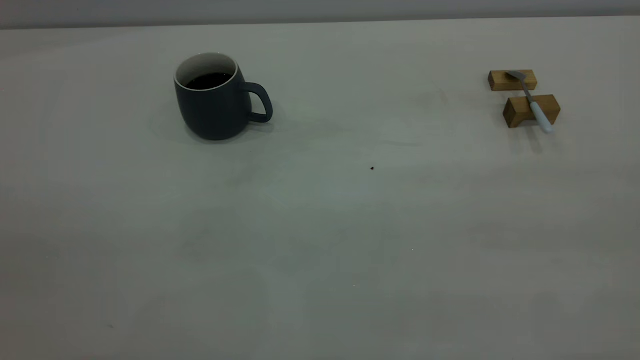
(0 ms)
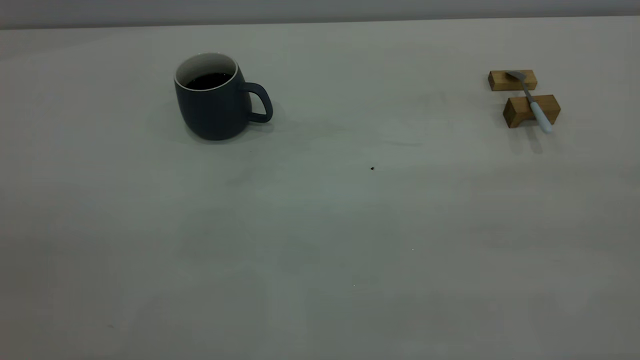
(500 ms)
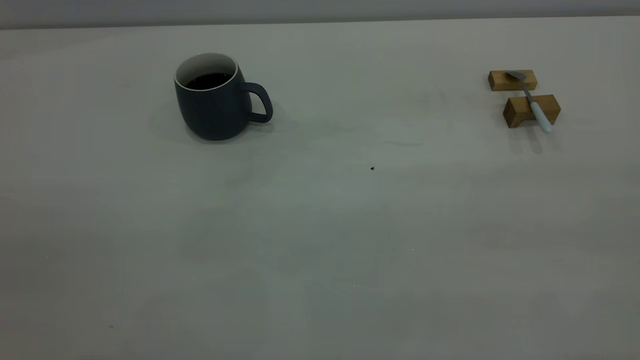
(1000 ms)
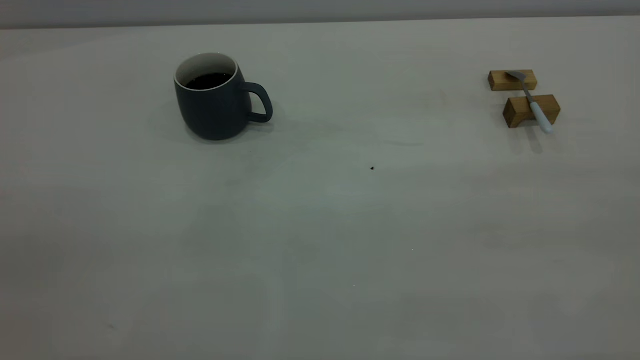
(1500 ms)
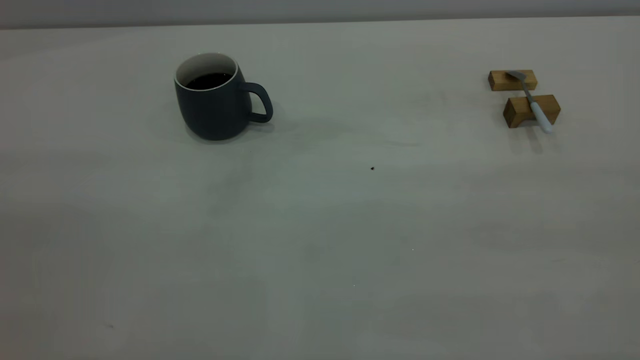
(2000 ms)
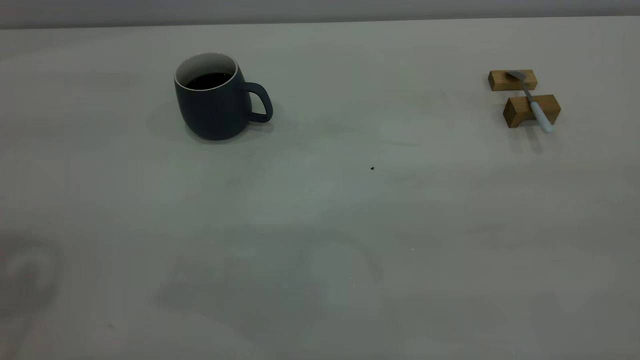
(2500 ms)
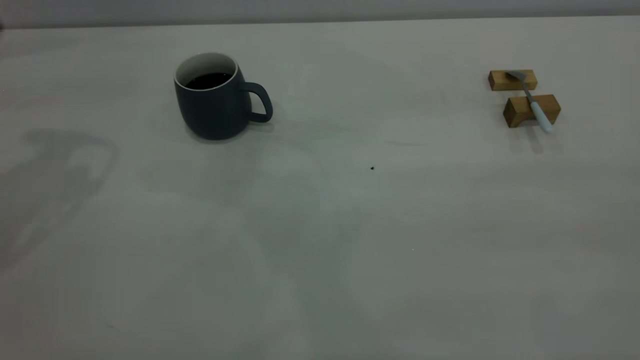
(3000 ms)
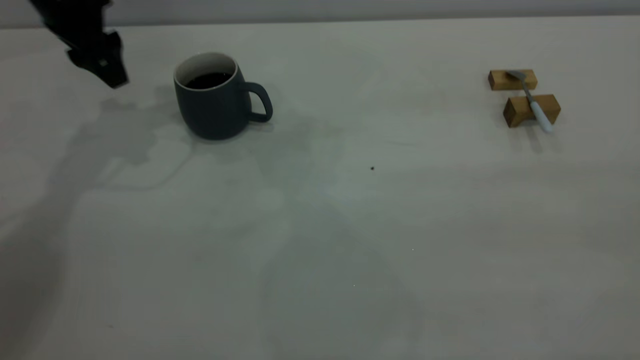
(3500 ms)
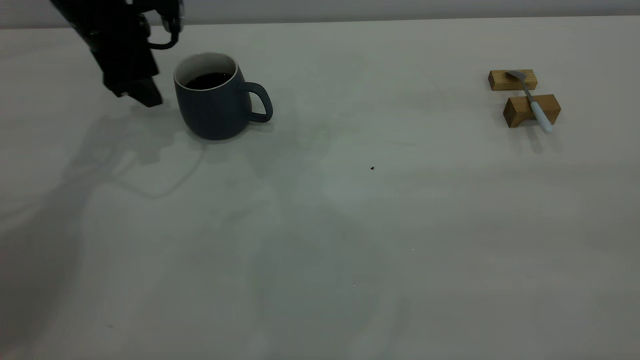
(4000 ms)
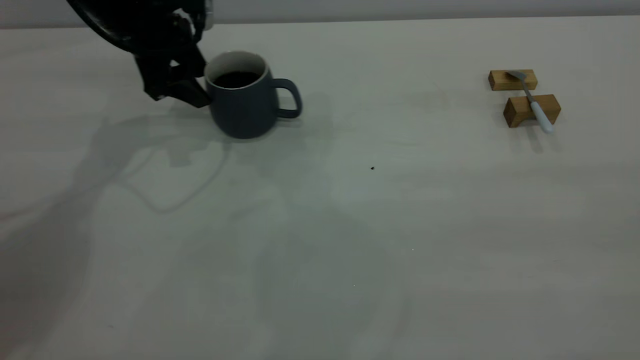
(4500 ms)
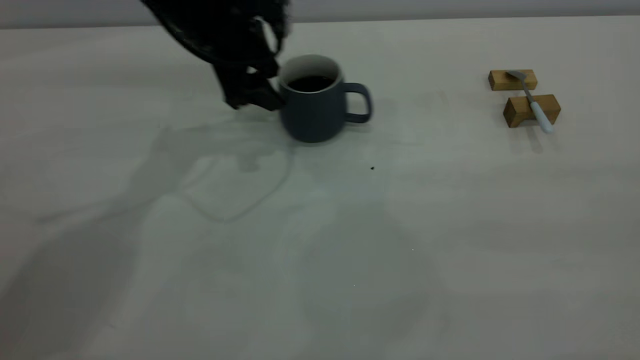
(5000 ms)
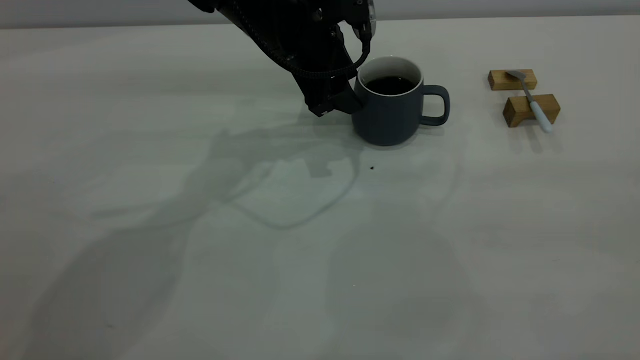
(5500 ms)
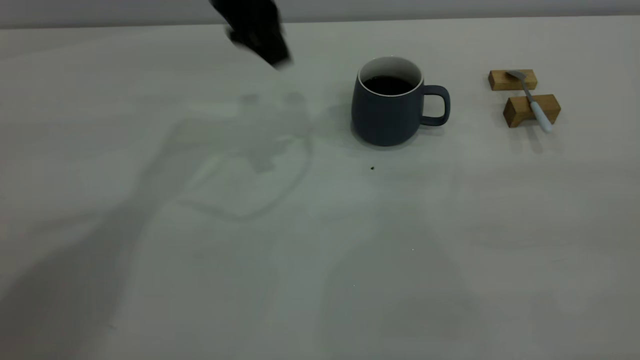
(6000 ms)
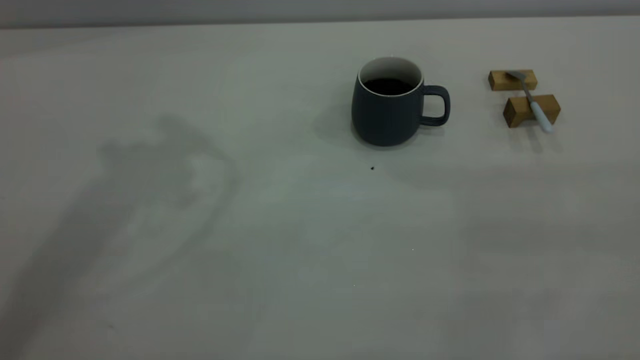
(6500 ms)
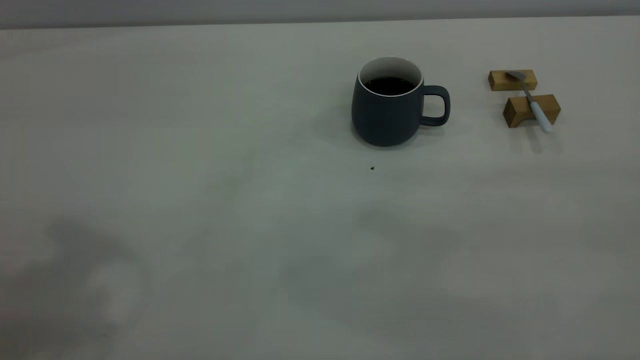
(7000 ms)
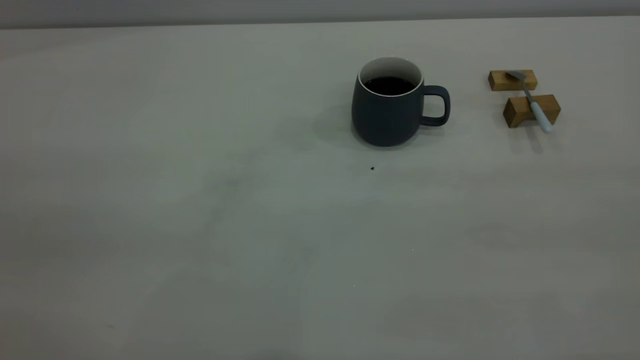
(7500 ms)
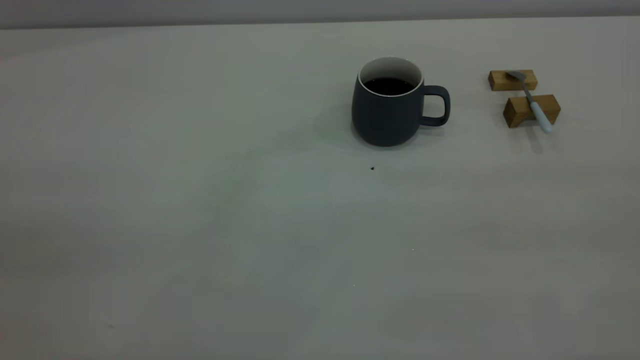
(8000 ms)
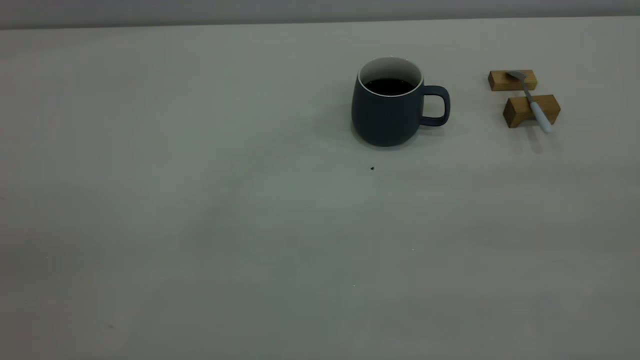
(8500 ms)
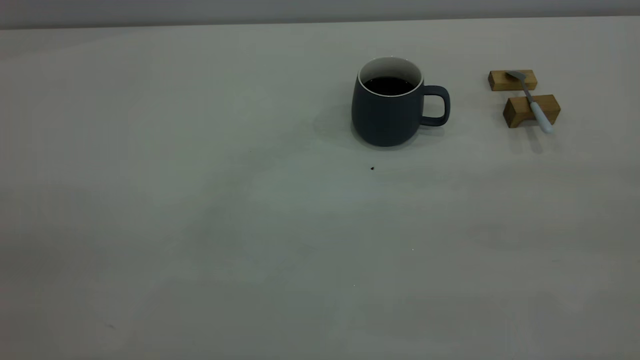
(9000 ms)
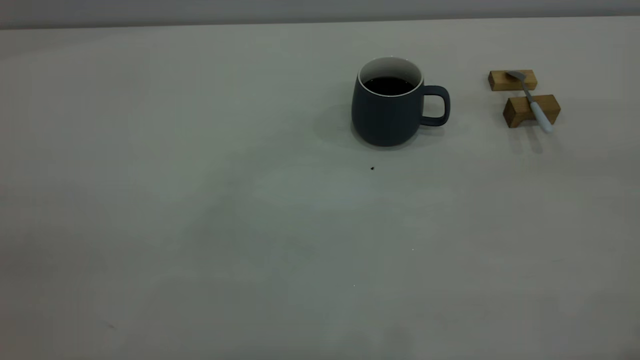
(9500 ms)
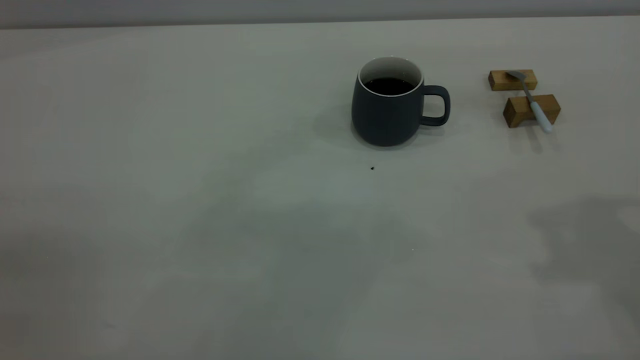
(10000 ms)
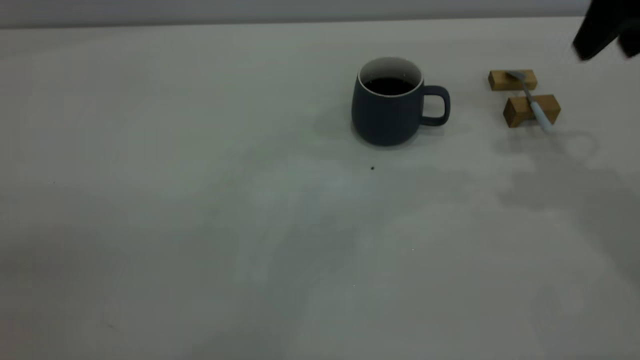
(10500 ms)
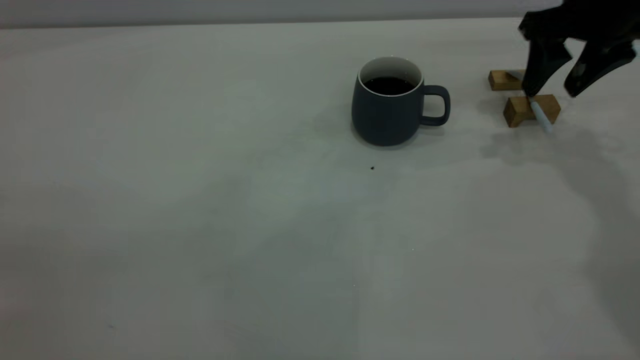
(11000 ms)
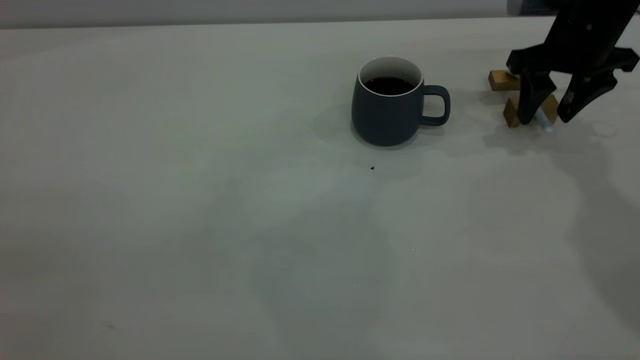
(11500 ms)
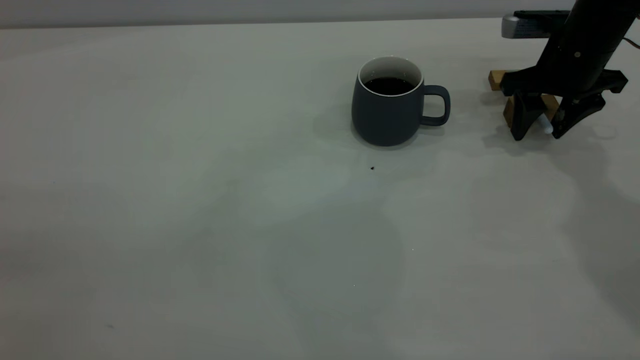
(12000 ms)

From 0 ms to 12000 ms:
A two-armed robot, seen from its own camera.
Step, from 0 ms to 5500 ms: Move the cup with coffee to the center of view.
From 2000 ms to 4000 ms: The left gripper heads forward and downward, covering some 50 cm.
From 4000 ms to 6000 ms: The left gripper goes roughly 15 cm to the right and upward.
From 6000 ms to 8000 ms: The left gripper is displaced backward and to the left by roughly 50 cm.
From 10000 ms to 12000 ms: The right gripper goes about 30 cm downward and forward.

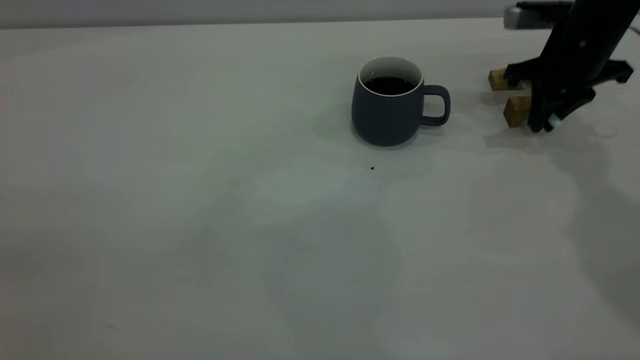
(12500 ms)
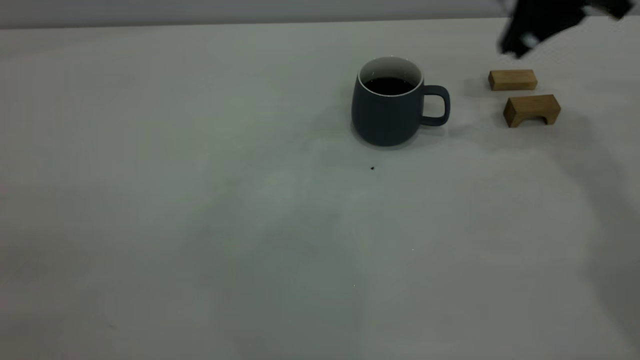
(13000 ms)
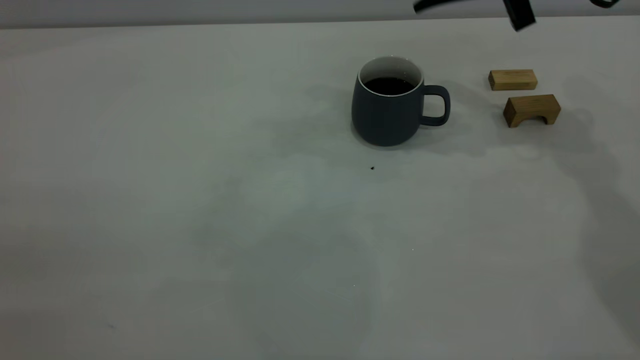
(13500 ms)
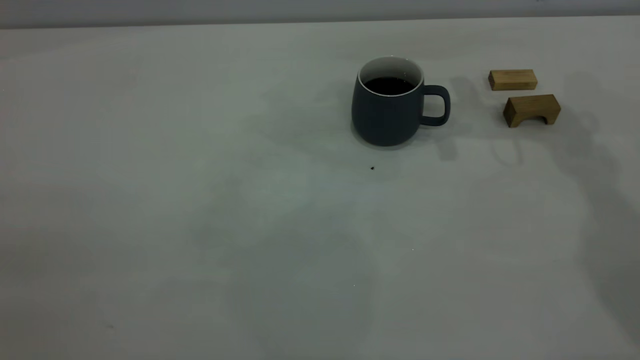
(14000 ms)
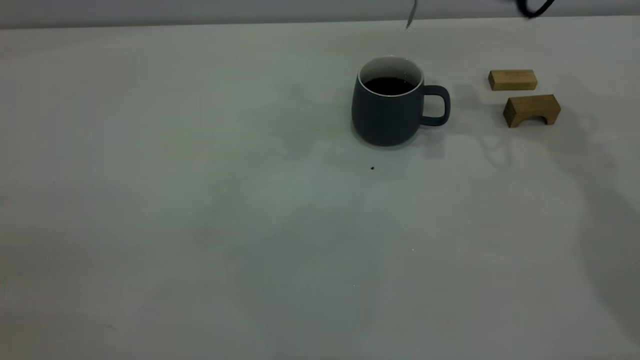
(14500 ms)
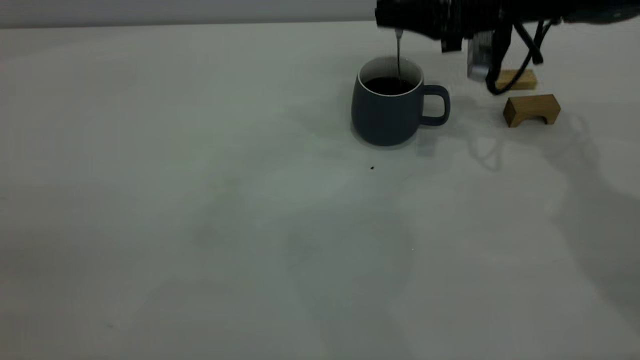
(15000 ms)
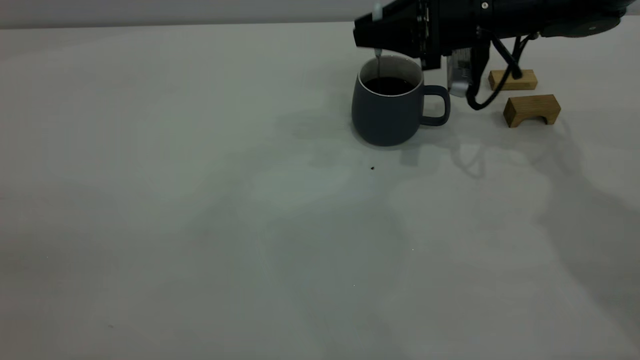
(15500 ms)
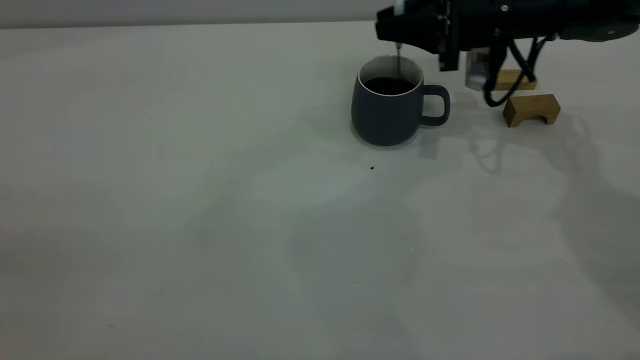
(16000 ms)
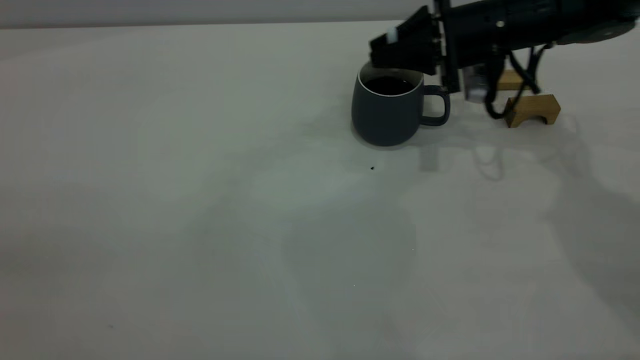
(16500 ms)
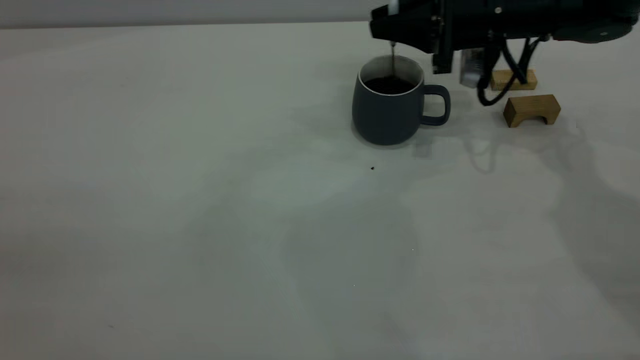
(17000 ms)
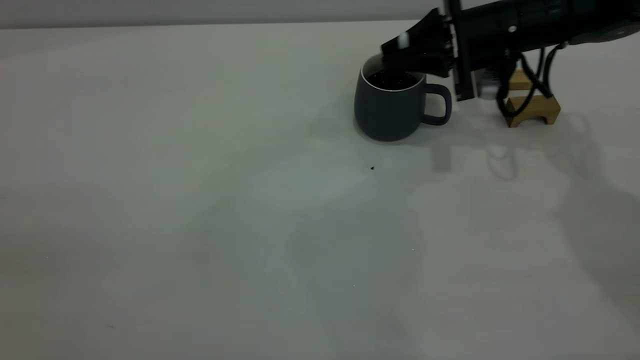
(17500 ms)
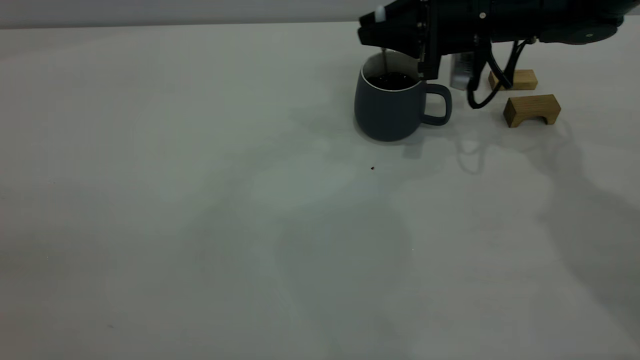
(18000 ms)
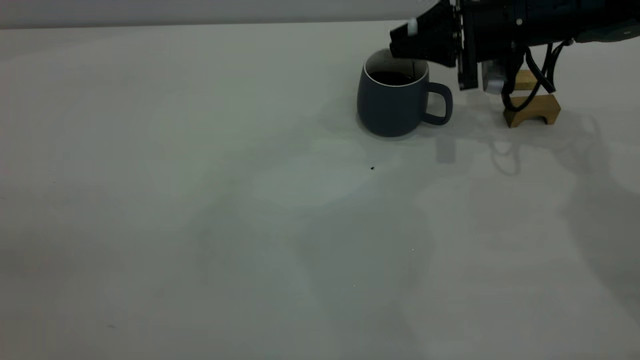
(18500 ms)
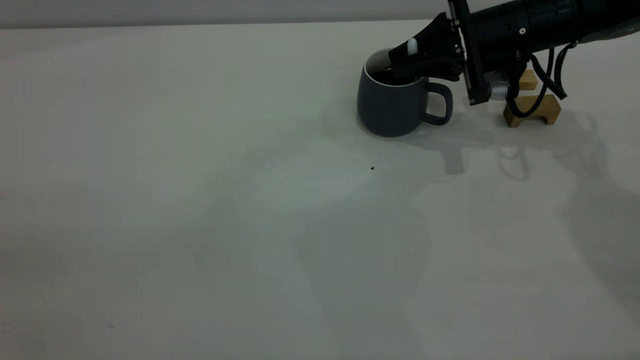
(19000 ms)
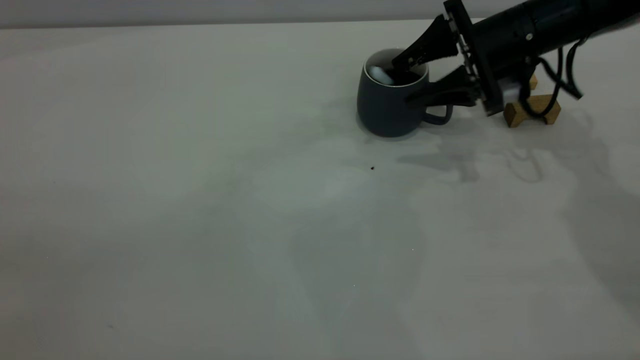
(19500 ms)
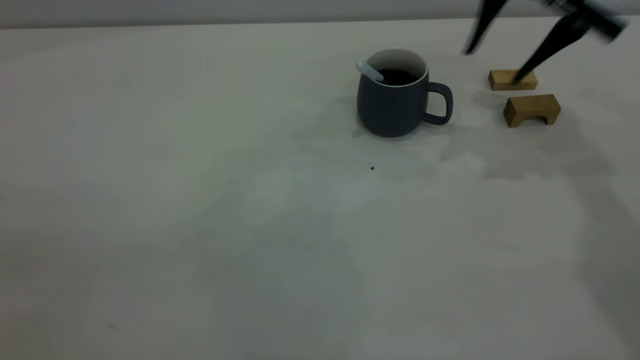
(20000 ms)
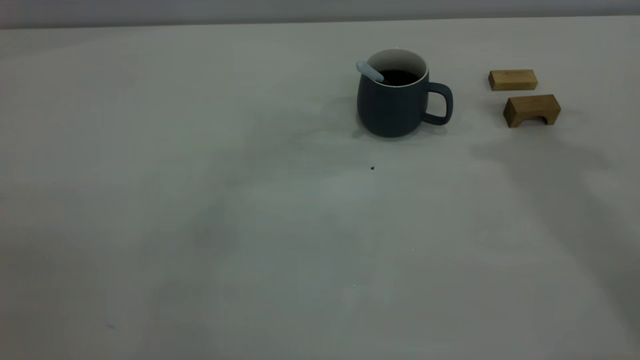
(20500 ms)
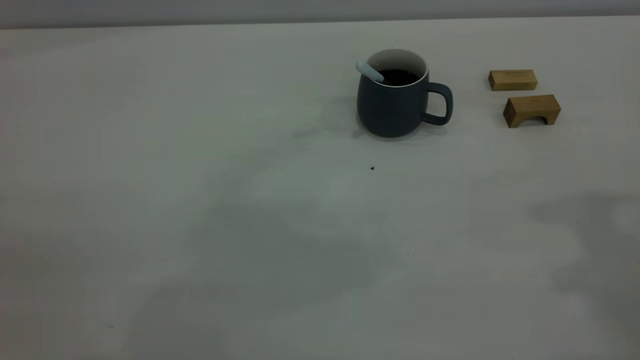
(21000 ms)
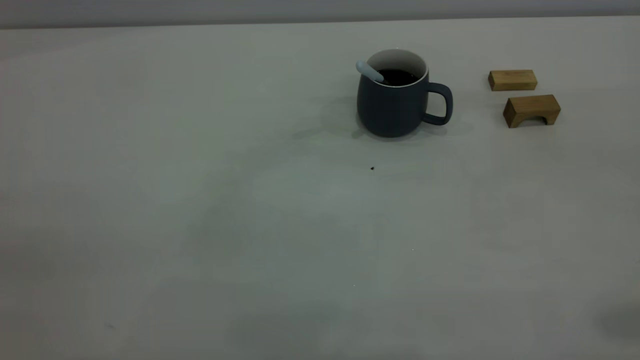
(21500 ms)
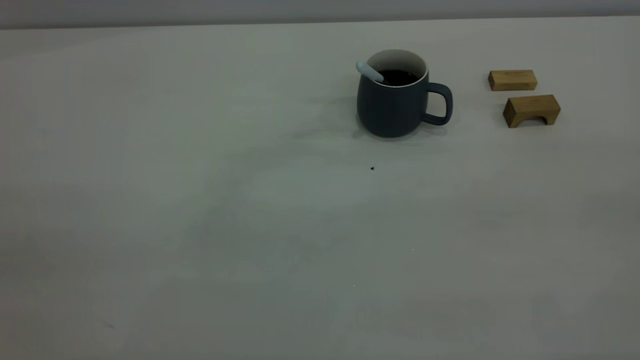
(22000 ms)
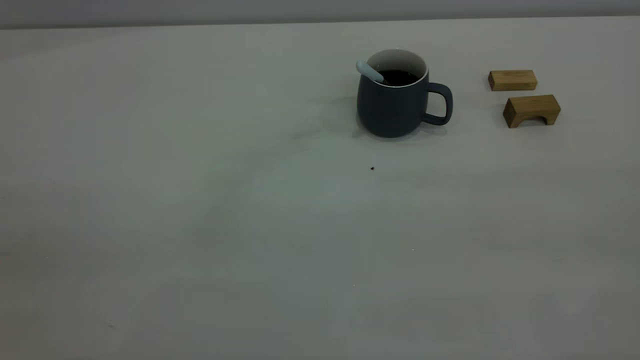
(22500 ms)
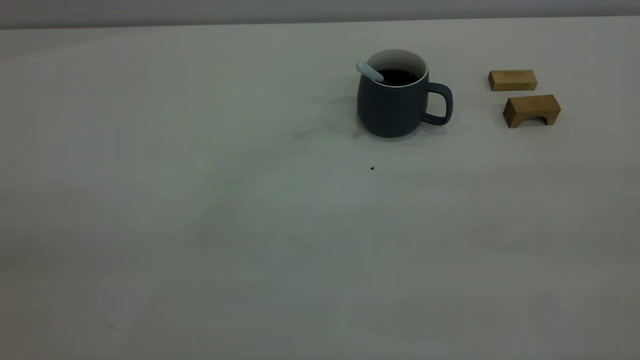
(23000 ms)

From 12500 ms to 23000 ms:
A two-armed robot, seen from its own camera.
Step, from 13000 ms to 19500 ms: Stir the coffee in the cup.
From 12500 ms to 14500 ms: The right gripper is displaced upward and to the left by some 10 cm.
From 14500 ms to 16500 ms: The right gripper goes some 10 cm downward.
From 16500 ms to 19000 ms: There are only small adjustments of the grippers.
From 19000 ms to 21000 ms: The right gripper goes roughly 40 cm upward and backward, and opens, then closes again.
